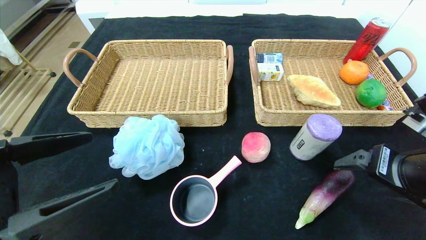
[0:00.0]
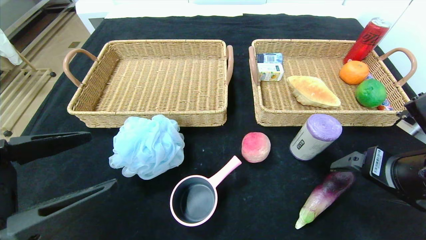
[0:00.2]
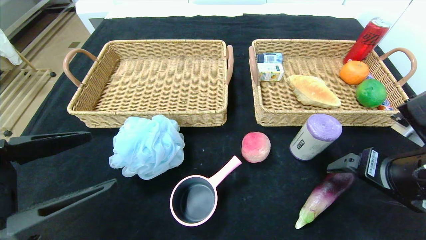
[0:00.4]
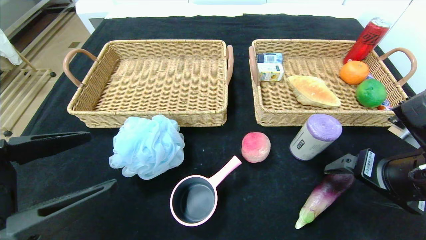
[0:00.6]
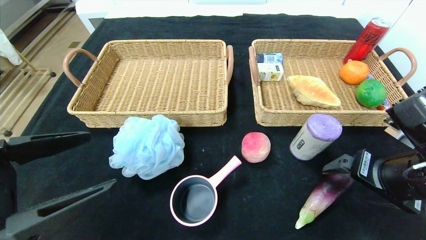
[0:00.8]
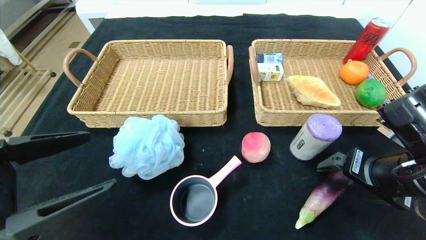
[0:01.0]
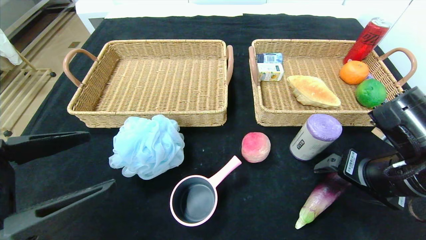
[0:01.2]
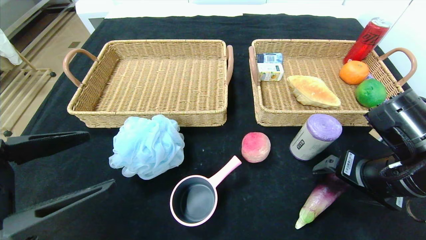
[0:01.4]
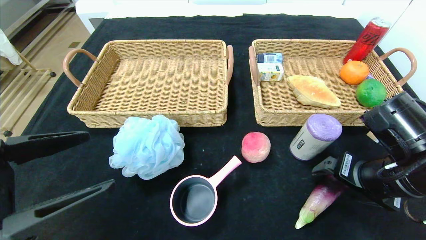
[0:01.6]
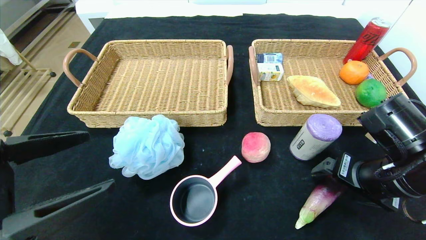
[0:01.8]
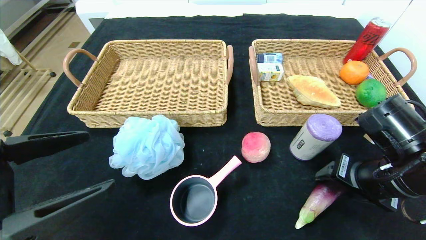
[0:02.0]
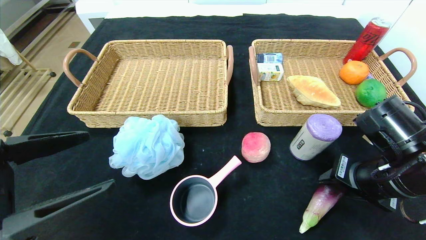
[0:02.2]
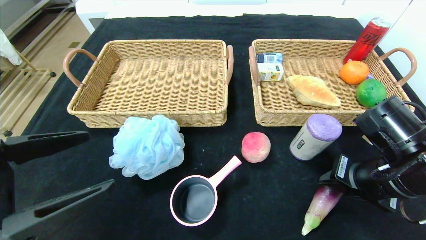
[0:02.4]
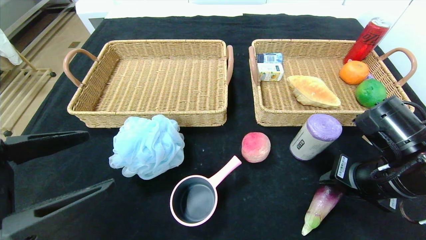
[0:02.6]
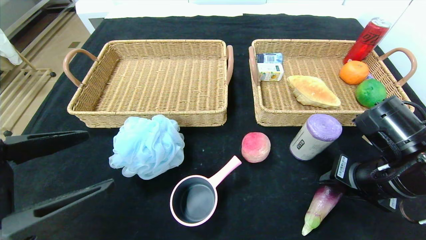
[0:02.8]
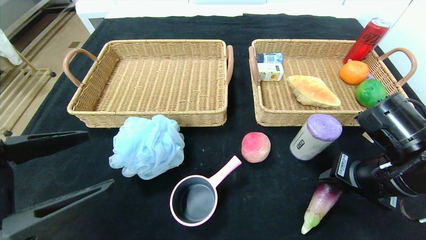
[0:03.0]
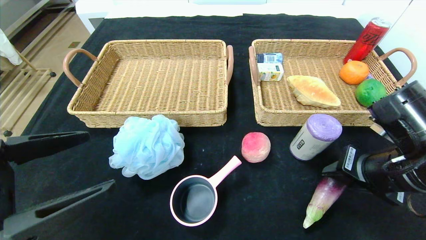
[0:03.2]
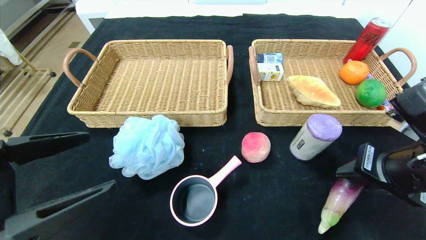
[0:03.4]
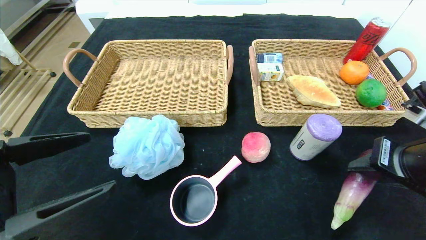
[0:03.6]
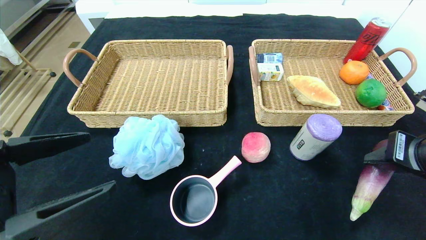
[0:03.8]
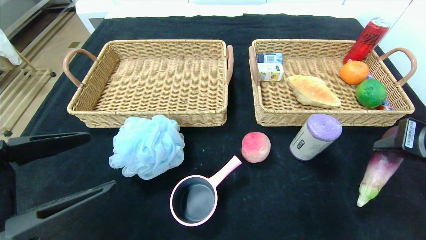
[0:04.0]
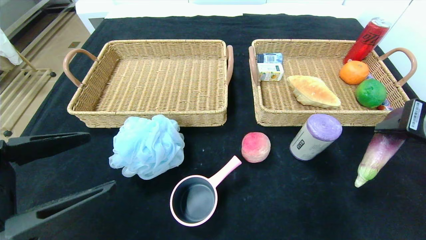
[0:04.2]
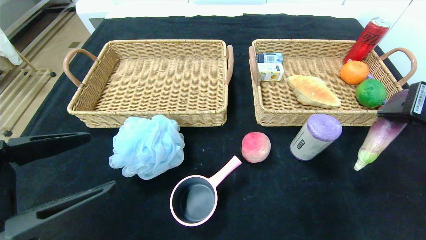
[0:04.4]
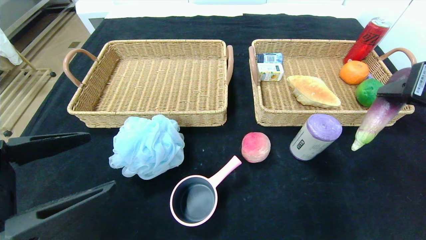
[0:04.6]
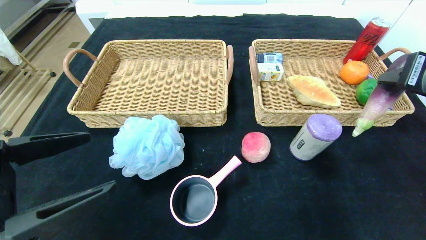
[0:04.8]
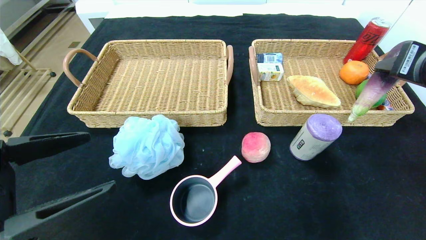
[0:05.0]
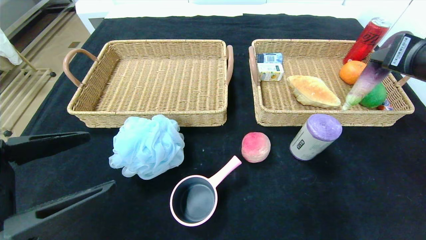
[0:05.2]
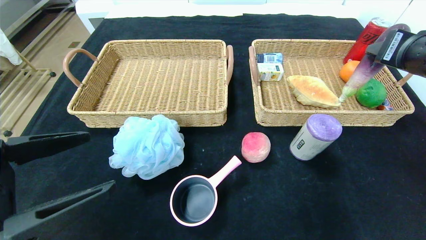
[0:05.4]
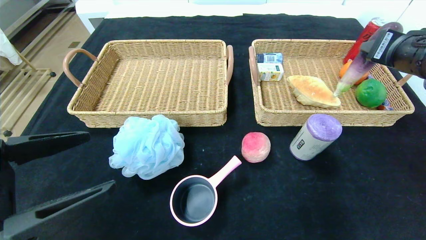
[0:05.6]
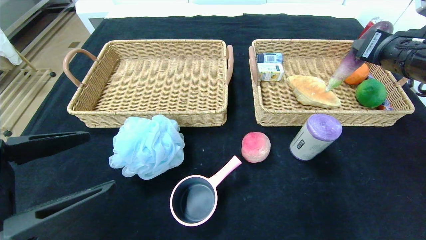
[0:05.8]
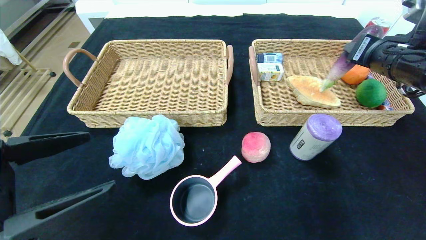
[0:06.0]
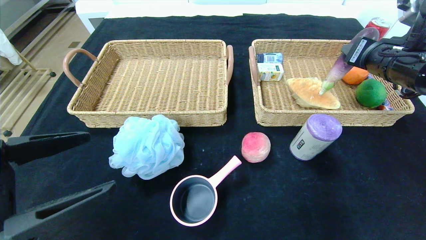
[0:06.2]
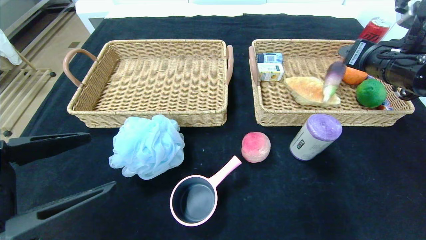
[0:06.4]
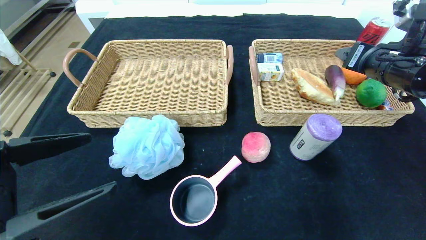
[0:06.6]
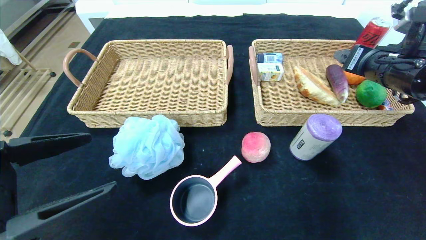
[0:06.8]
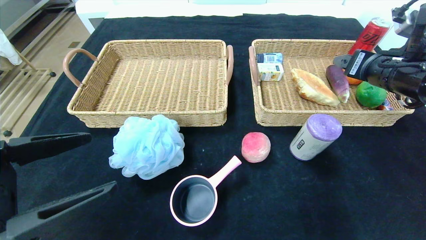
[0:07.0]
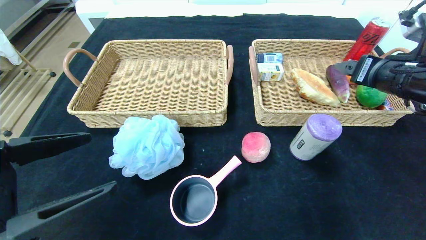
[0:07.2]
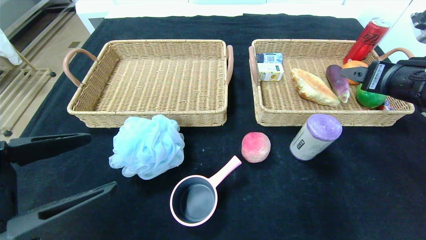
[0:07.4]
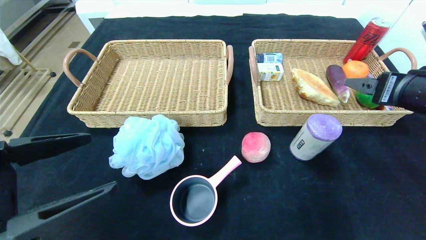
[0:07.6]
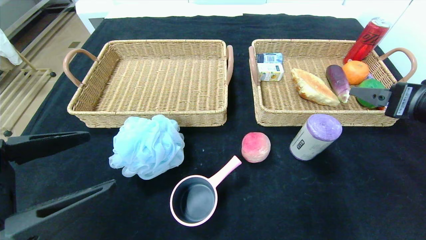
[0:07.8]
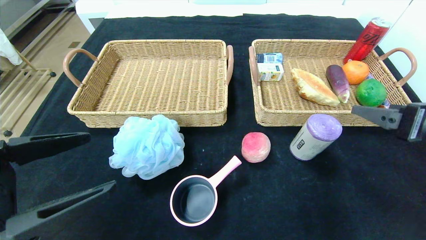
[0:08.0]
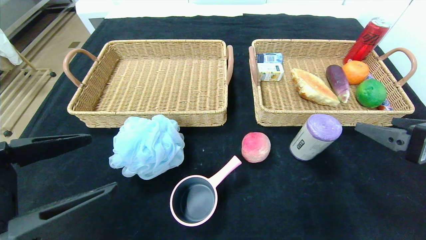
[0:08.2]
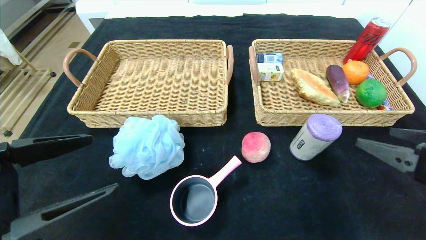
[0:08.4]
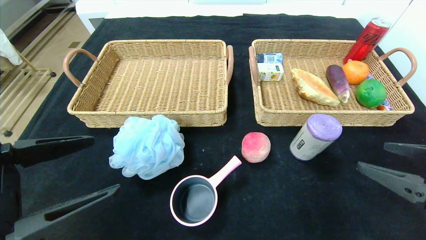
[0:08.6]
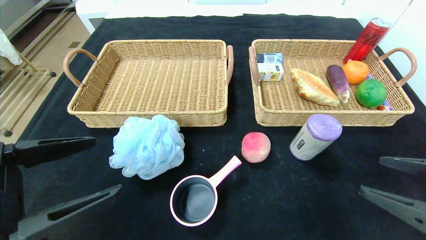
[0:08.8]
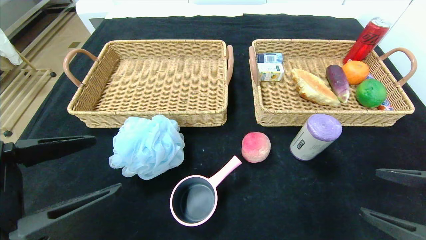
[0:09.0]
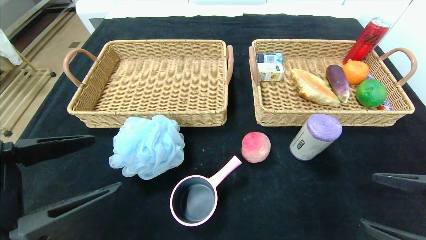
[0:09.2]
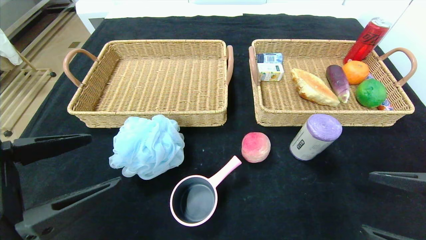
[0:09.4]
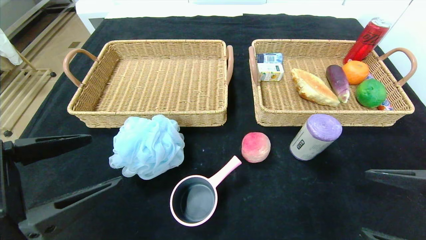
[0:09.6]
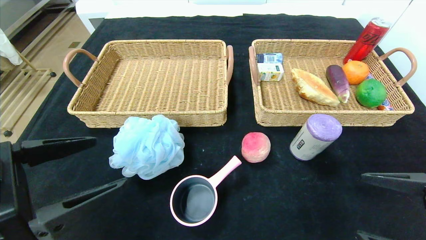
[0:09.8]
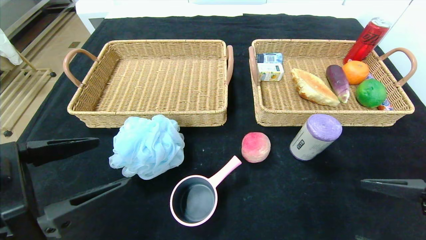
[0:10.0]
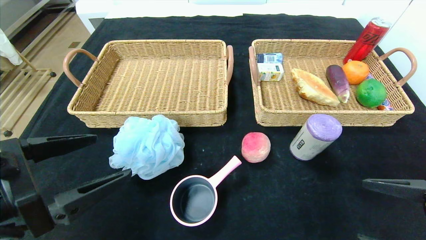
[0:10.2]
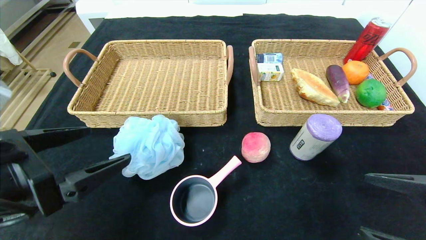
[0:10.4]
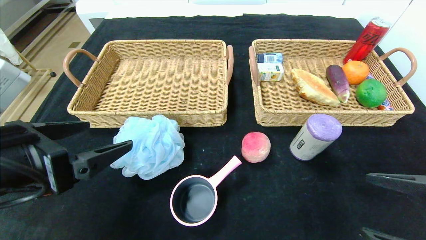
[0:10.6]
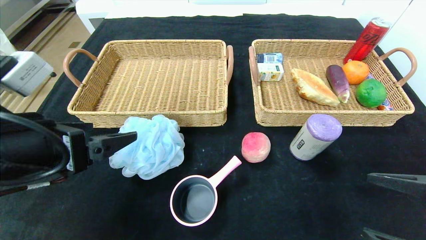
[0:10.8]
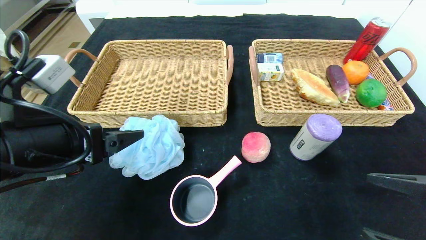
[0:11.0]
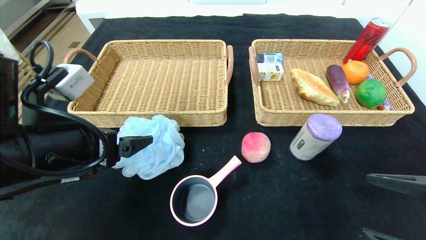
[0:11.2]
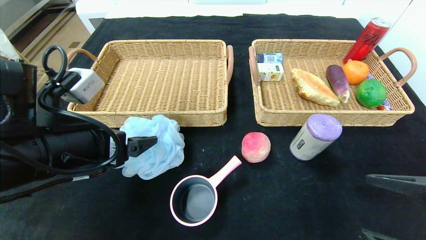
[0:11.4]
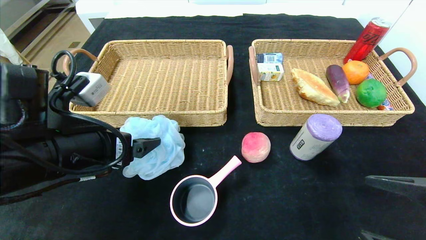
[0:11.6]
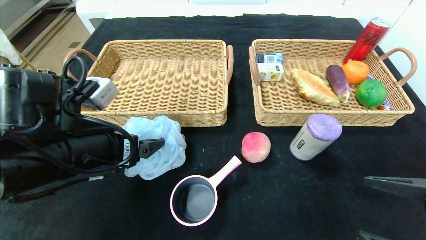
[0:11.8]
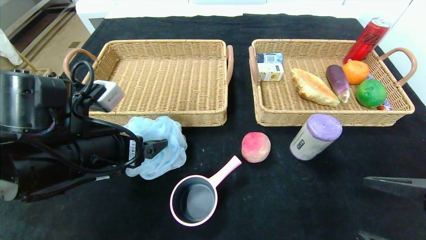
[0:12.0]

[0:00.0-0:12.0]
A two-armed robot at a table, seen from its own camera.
Step, 0:00.0 to 0:08.2: Pick up the eggplant and put it in the right basket.
0:00.0 to 0:01.6: The right gripper ends up some 5 cm from where it was.
0:01.6 to 0:03.0: The right gripper closes.
0:03.0 to 0:04.4: The right gripper moves upward and to the right, roughly 10 cm.
0:04.4 to 0:06.0: The right gripper shifts some 10 cm forward.
0:06.0 to 0:07.6: The right gripper is displaced backward by approximately 10 cm, and opens up.
0:07.6 to 0:09.0: The right gripper is displaced backward and downward by about 15 cm.
0:09.0 to 0:10.4: The grippers stay close to where they were, moving slightly.
0:10.4 to 0:12.0: The left gripper moves forward, roughly 10 cm.

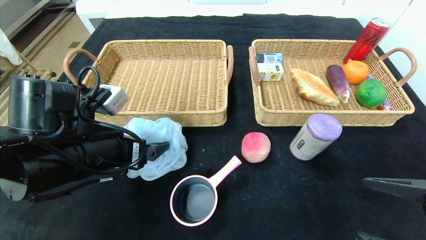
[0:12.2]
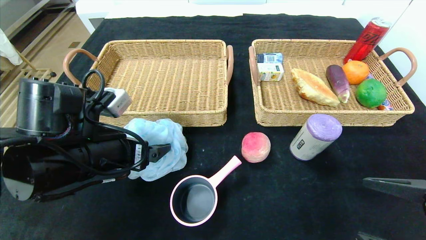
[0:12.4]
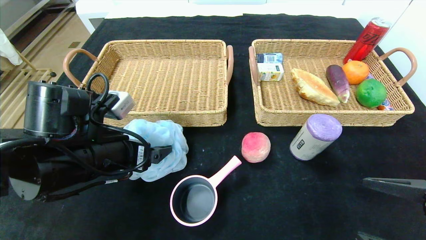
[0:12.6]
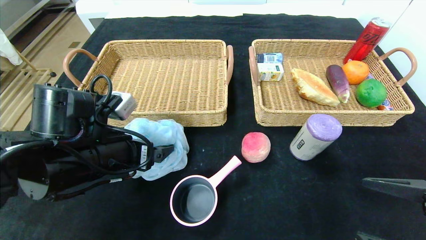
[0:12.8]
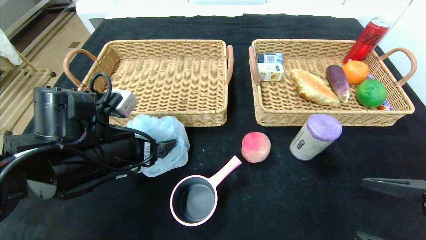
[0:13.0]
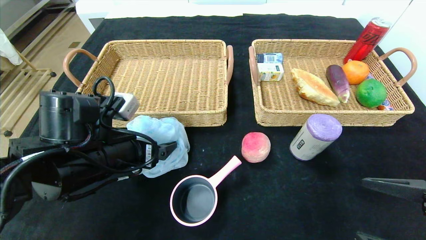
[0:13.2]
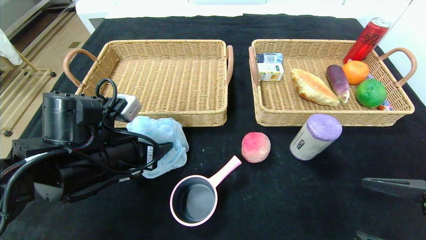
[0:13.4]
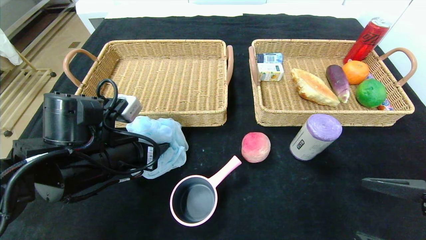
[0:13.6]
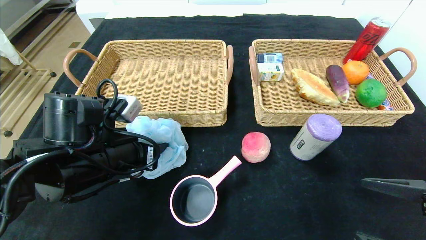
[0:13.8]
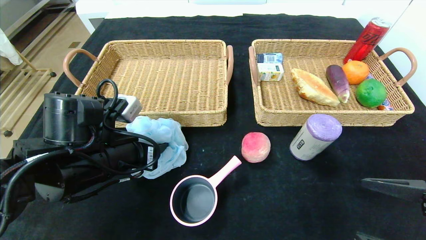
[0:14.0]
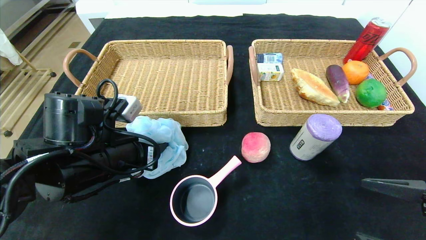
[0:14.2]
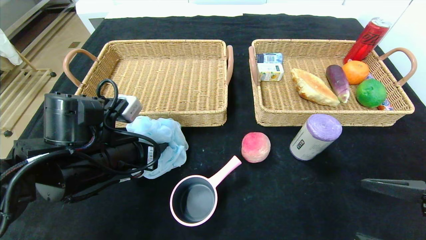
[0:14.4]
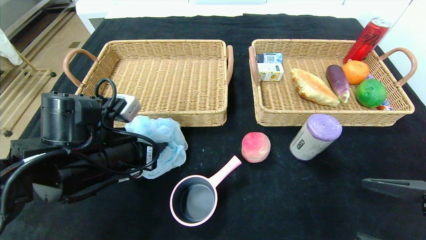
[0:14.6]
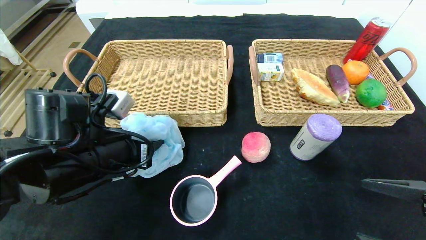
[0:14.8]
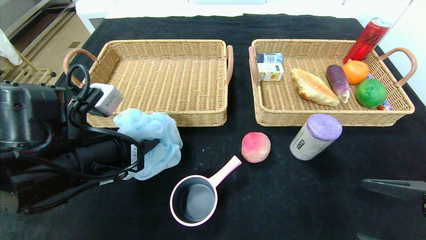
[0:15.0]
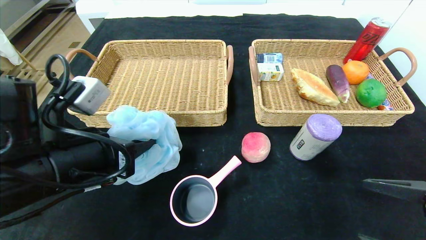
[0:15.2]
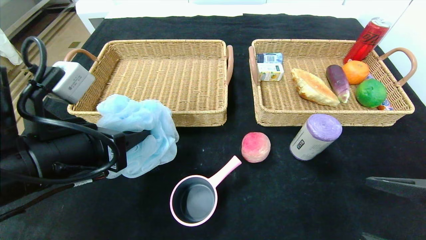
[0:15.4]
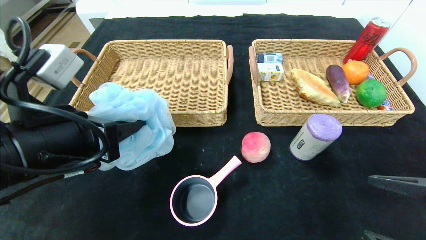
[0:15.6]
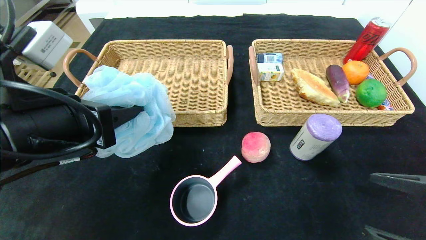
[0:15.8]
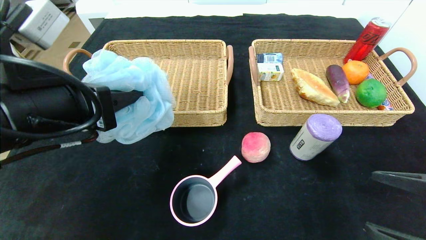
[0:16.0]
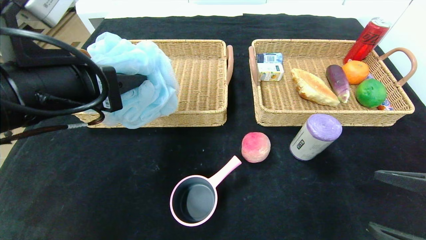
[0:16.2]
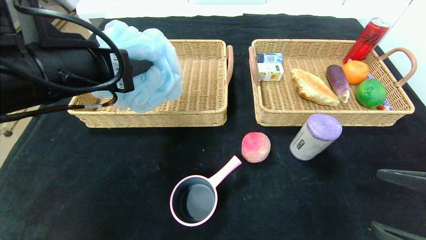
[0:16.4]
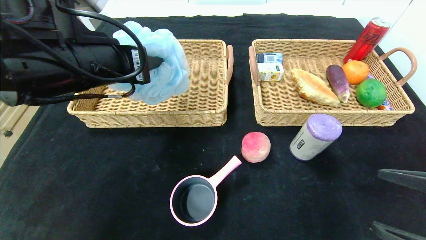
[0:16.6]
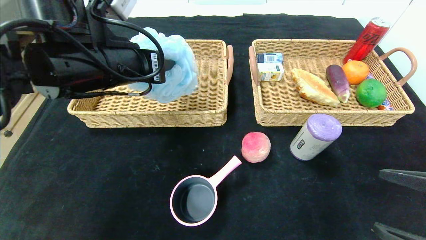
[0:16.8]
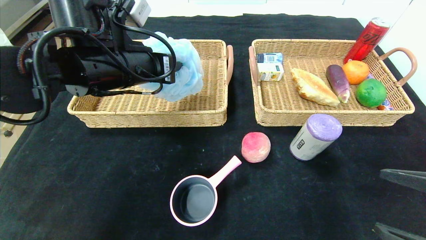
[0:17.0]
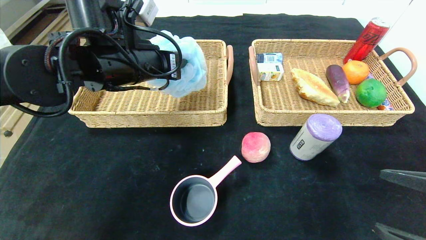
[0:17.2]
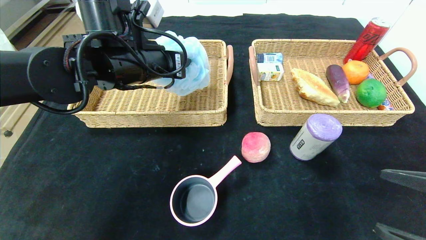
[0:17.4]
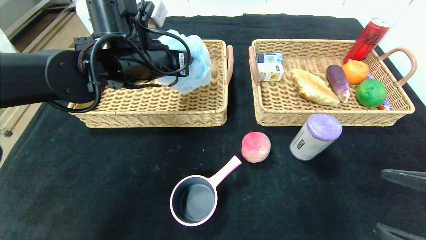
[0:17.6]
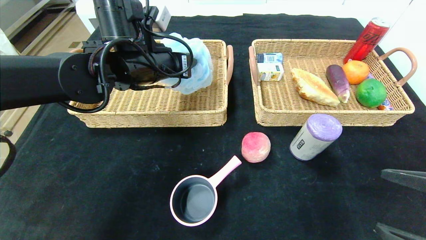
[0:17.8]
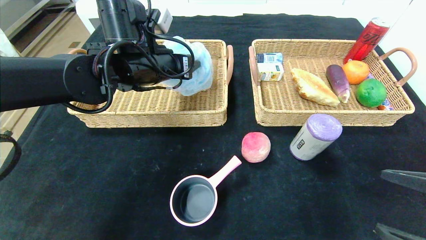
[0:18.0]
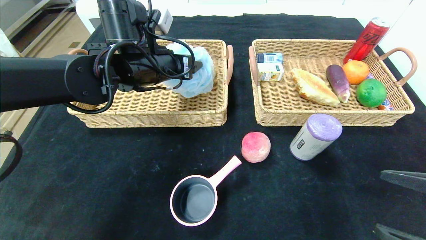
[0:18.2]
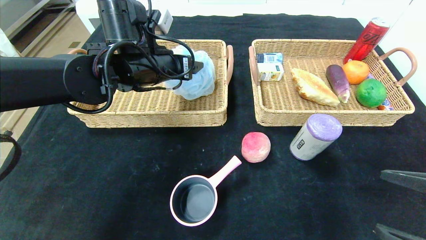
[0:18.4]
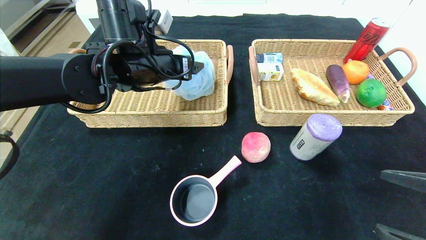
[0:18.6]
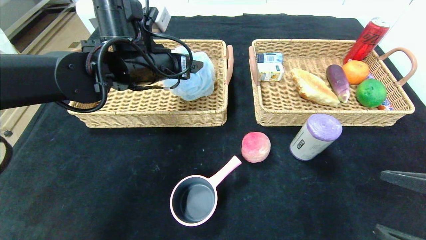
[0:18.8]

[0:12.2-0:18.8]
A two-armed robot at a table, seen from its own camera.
0:12.2 to 0:13.8: The left gripper closes its fingers.
0:13.8 to 0:15.4: The left gripper moves backward and upward, roughly 10 cm.
0:15.4 to 0:17.2: The left gripper goes roughly 15 cm forward and upward.
0:17.2 to 0:18.8: The left gripper opens.
